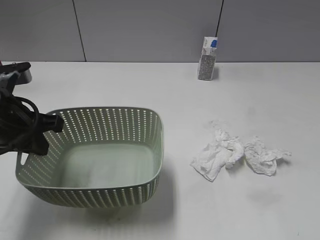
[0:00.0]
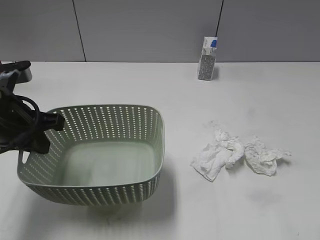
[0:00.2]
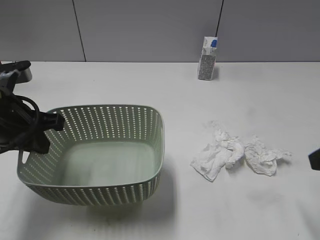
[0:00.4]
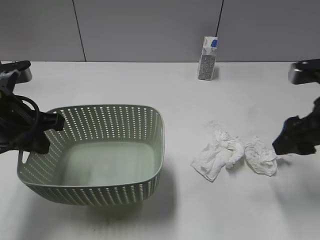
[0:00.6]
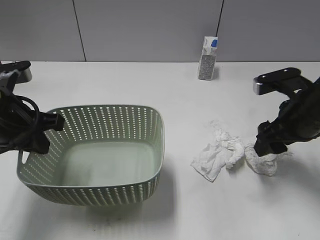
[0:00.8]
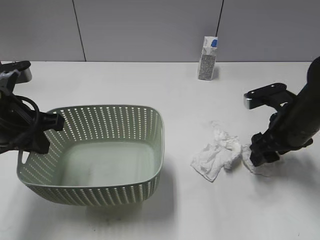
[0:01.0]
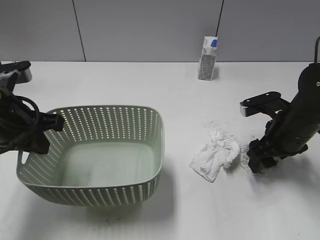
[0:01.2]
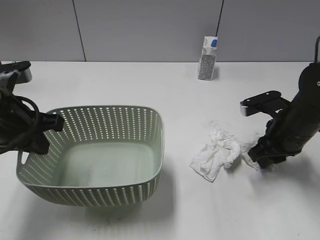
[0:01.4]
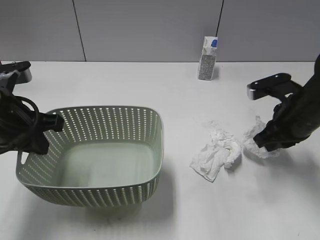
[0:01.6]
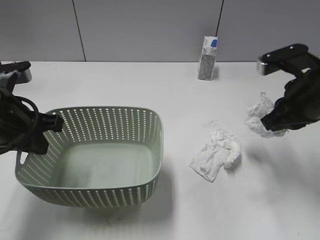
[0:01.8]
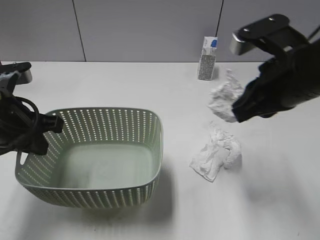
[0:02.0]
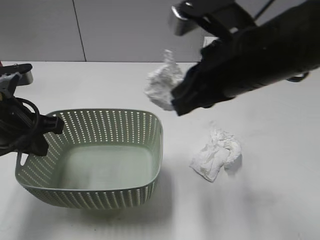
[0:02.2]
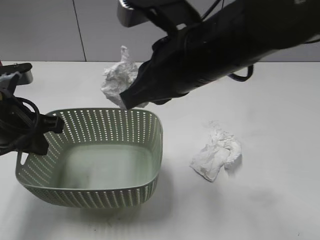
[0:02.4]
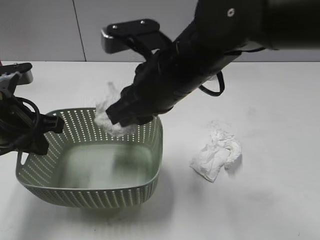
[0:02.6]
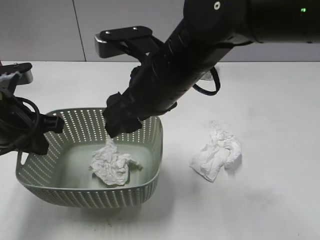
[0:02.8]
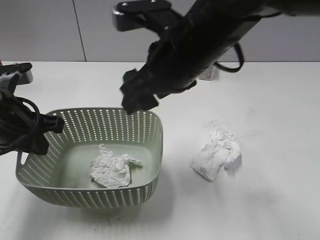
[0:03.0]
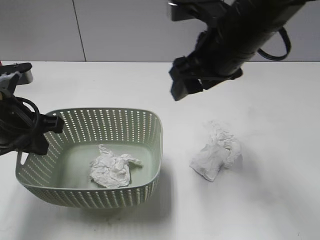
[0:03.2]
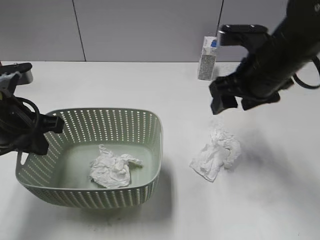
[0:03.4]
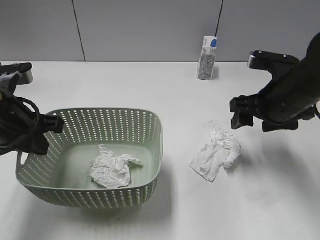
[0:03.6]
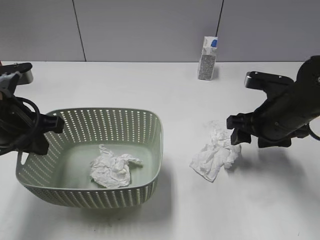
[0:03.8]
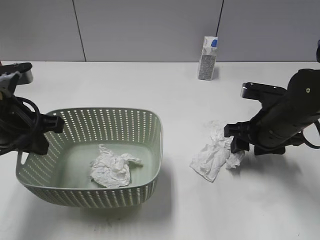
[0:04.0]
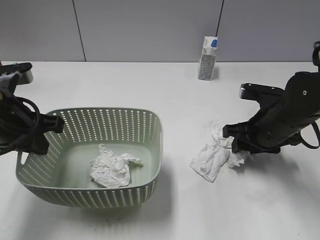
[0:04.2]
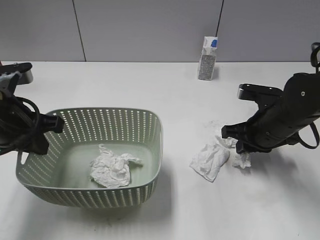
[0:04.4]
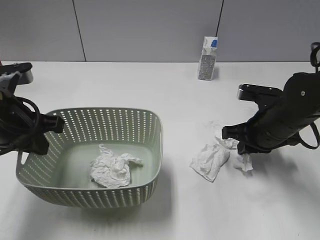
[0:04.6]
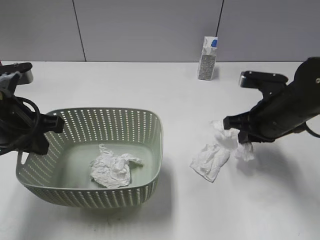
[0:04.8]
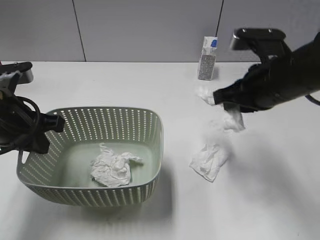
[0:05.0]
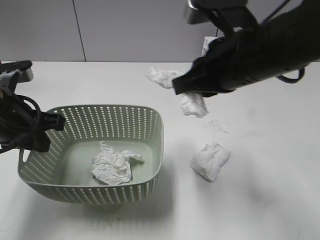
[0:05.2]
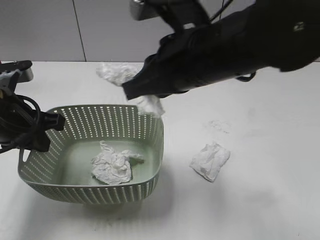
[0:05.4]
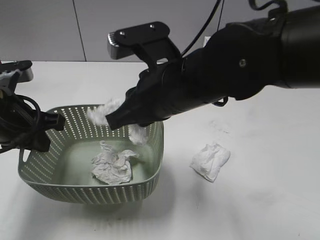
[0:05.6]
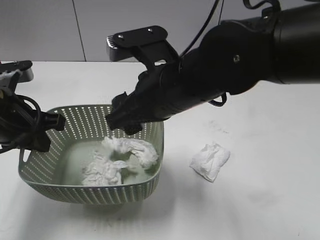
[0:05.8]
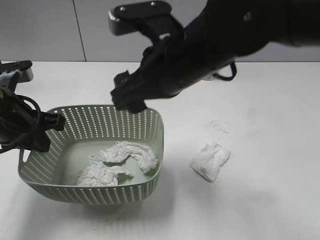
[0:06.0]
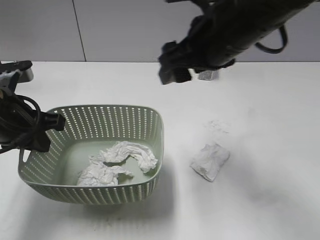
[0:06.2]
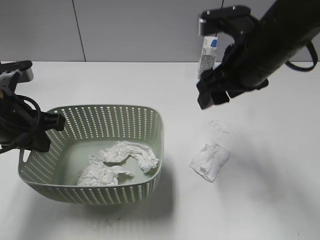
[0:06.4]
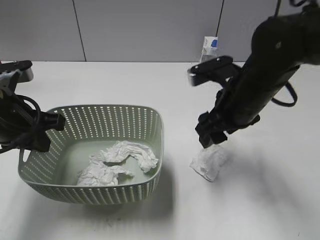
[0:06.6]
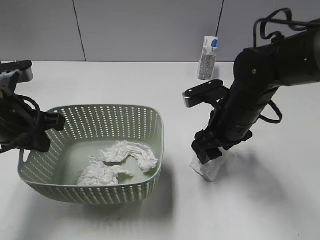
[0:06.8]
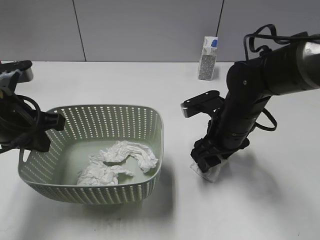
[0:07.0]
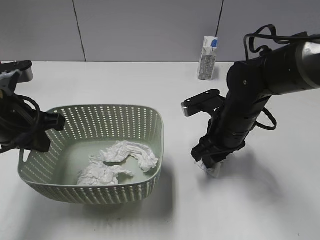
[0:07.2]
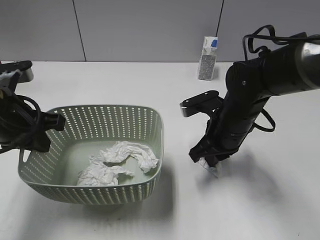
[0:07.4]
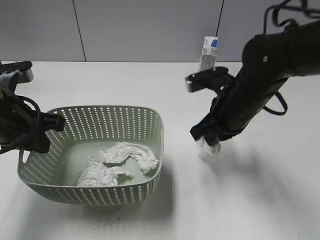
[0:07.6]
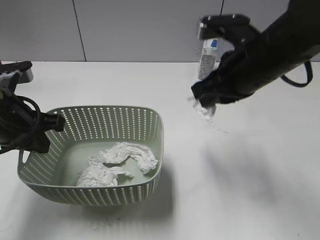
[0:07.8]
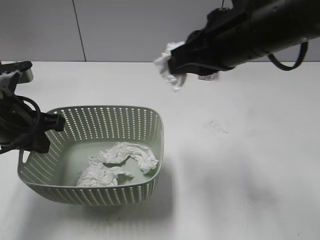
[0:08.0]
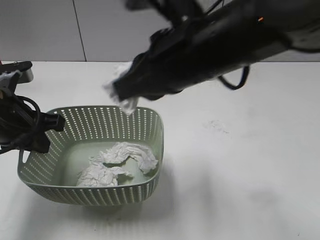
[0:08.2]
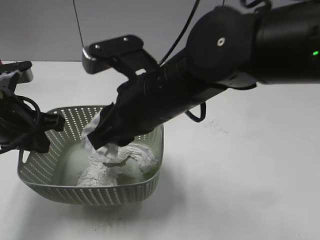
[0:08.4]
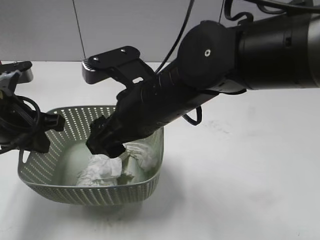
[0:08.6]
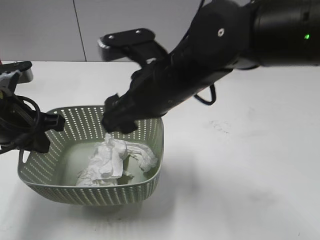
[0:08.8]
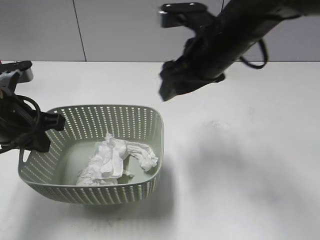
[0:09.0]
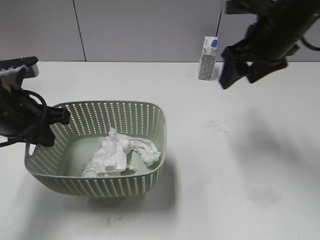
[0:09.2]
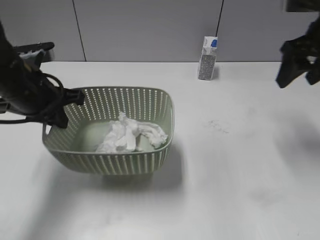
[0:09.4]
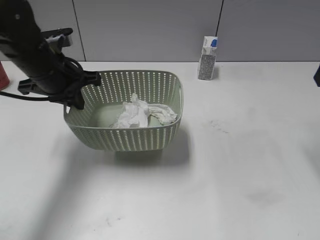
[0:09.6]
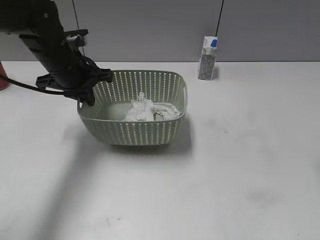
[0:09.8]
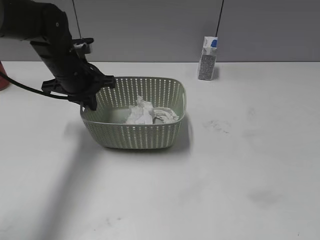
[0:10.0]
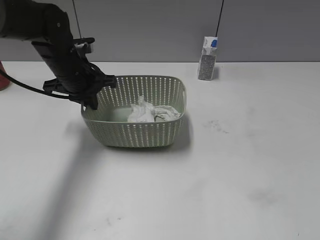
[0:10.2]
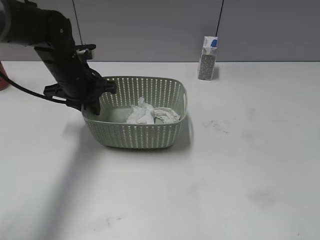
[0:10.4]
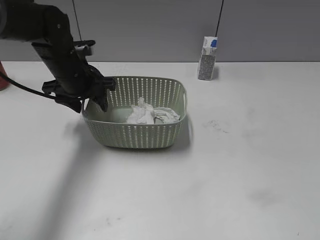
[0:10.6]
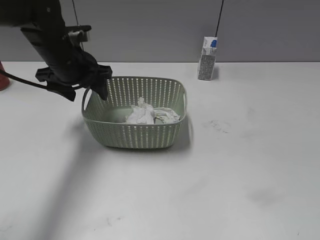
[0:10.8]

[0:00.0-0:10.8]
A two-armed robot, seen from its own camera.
Step, 0:00.2 to 0:01.8: Grasp the waste paper with right gripper.
Step, 0:02.0 to 0:02.8: Place the waste paper in the basket with right gripper.
Step, 0:03.0 to 0:04.6: Grasp the waste paper with right gripper.
Step, 0:04.8 to 0:05.8: Place the waste paper in the basket with right gripper.
Step, 0:06.0 to 0:07.4: Grasp the waste paper with right gripper.
Step, 0:07.6 to 0:08.8: Place the waste paper in the basket with right gripper.
Step, 0:09.0 to 0:10.8: Place the basket on the table with left gripper.
0:00.0 to 0:01.6: The right gripper is displaced forward and downward by roughly 30 cm, and closes its fingers.
0:01.6 to 0:03.0: The right gripper shifts some 25 cm to the left and upward, and opens.
0:03.0 to 0:04.6: The right gripper shifts roughly 25 cm to the right and downward, and closes.
0:04.6 to 0:06.2: The right gripper heads upward and to the left, covering about 20 cm, and opens.
0:06.2 to 0:07.8: The right gripper travels downward and back again, approximately 20 cm each way, and closes its fingers.
0:07.8 to 0:09.2: The right gripper heads forward, covering roughly 5 cm, moves some 15 cm to the left and comes back, and opens.
0:09.2 to 0:10.8: The left gripper is displaced forward and to the right by approximately 15 cm, and opens up. Meanwhile the right gripper goes approximately 35 cm backward and to the right.

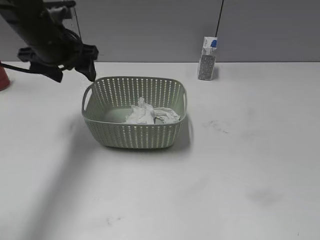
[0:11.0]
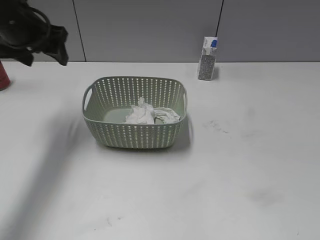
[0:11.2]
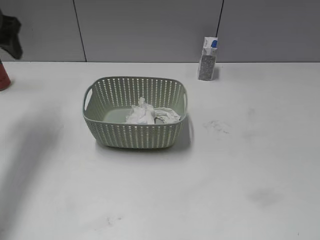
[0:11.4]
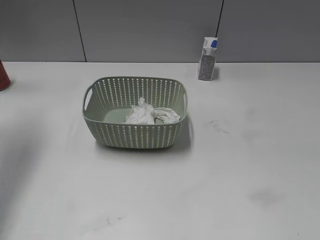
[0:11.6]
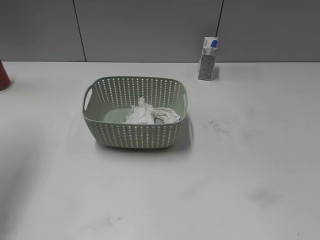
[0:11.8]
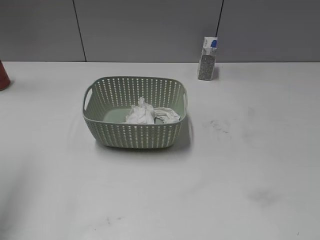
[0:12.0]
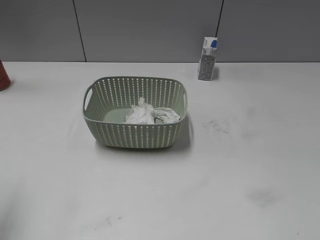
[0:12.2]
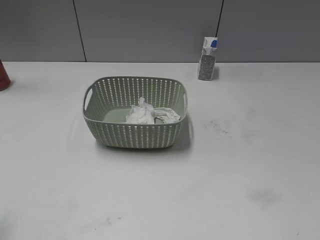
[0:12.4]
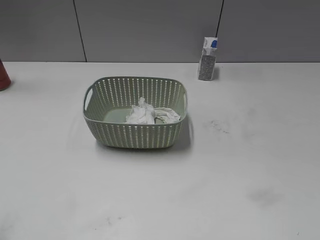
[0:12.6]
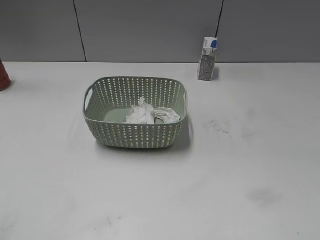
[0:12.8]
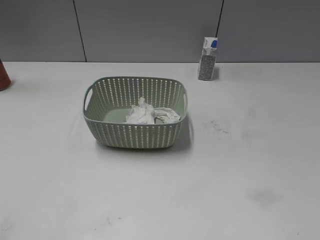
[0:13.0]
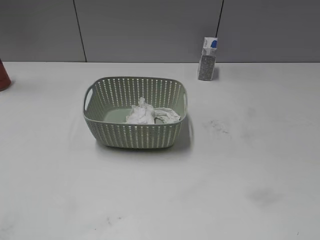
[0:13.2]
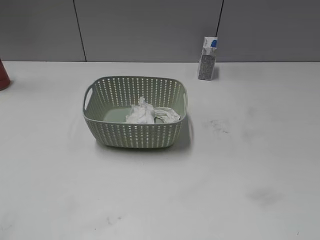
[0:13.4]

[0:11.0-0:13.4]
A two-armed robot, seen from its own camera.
0:11.0 to 0:12.2: The left gripper is displaced backward, to the left and upward by approximately 30 cm.
